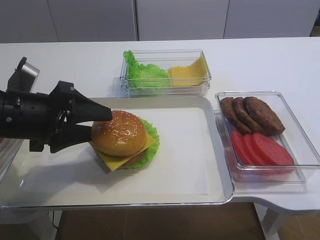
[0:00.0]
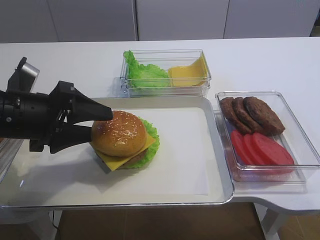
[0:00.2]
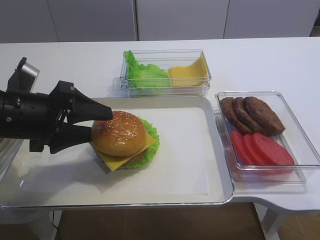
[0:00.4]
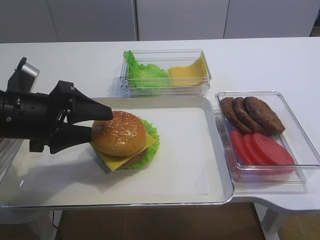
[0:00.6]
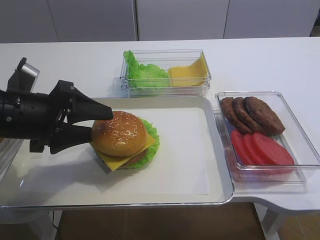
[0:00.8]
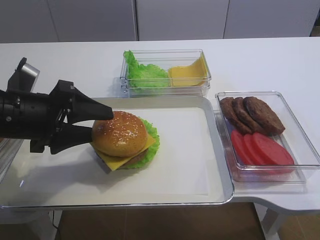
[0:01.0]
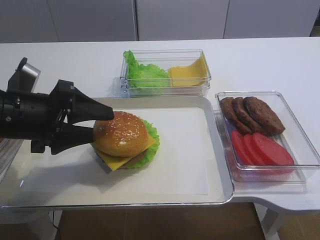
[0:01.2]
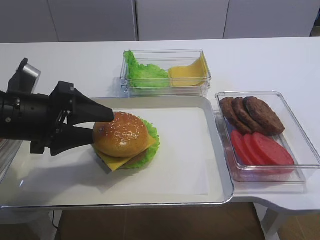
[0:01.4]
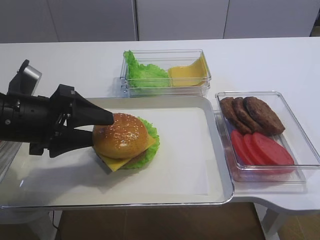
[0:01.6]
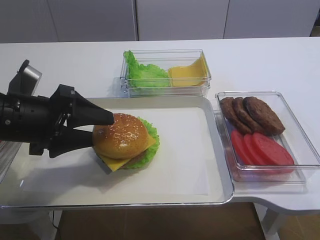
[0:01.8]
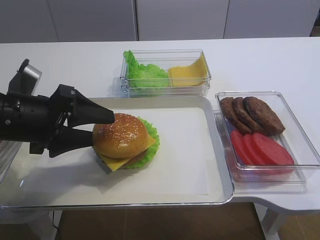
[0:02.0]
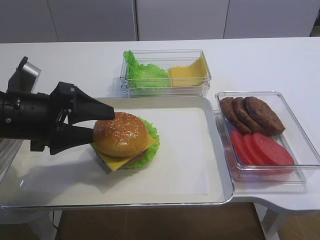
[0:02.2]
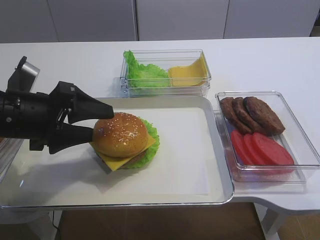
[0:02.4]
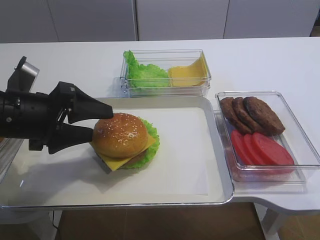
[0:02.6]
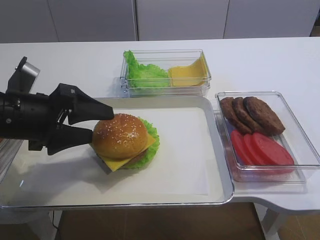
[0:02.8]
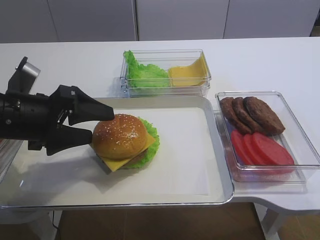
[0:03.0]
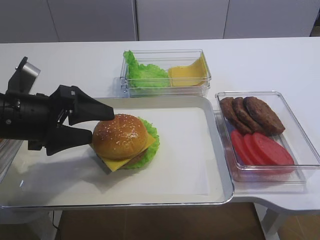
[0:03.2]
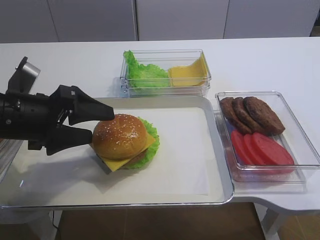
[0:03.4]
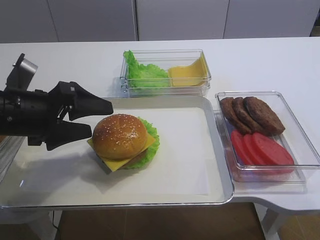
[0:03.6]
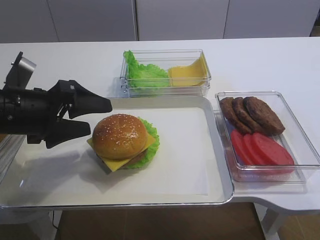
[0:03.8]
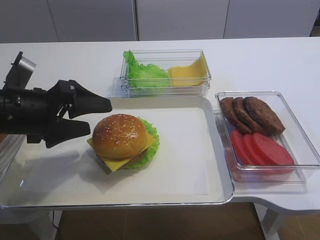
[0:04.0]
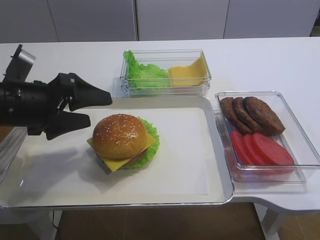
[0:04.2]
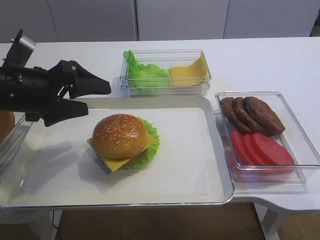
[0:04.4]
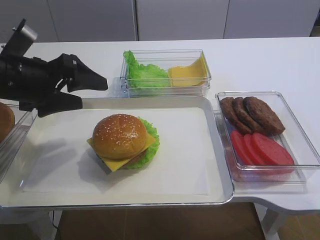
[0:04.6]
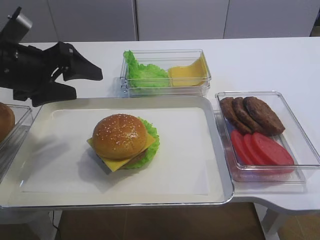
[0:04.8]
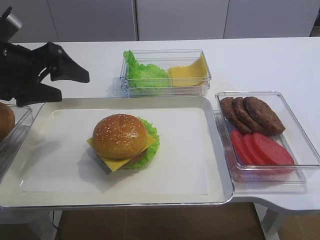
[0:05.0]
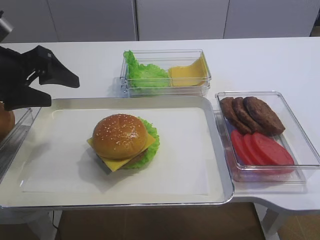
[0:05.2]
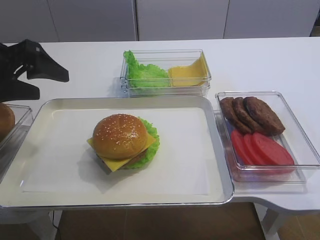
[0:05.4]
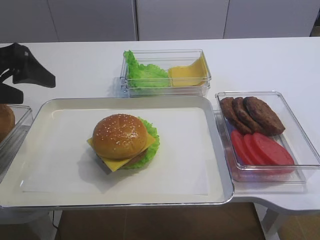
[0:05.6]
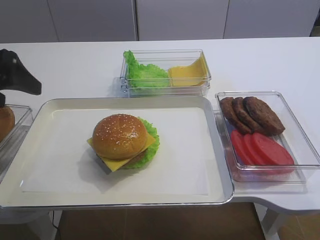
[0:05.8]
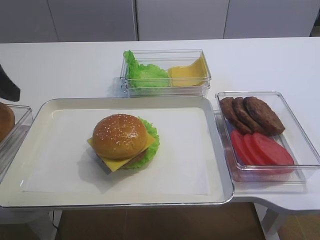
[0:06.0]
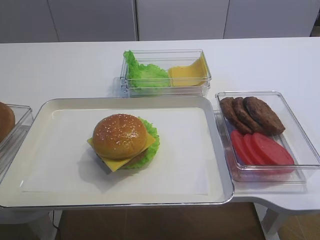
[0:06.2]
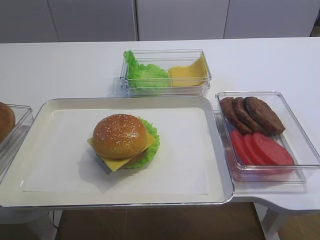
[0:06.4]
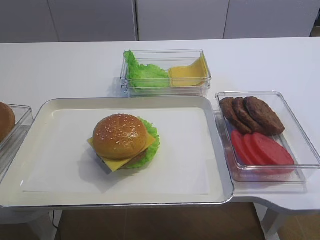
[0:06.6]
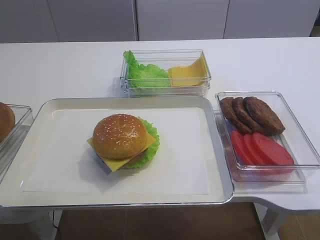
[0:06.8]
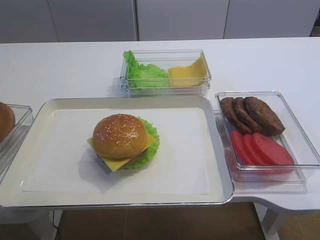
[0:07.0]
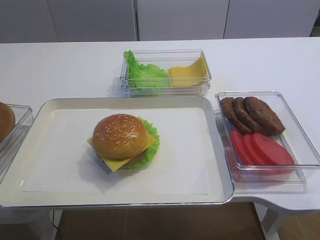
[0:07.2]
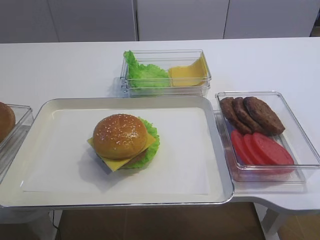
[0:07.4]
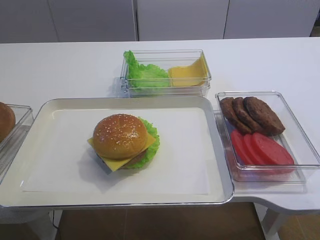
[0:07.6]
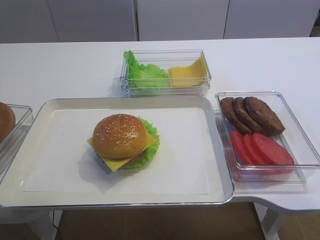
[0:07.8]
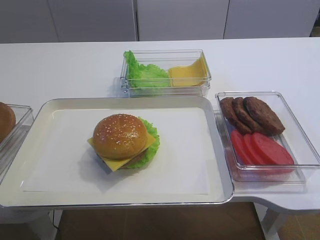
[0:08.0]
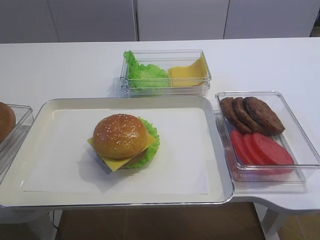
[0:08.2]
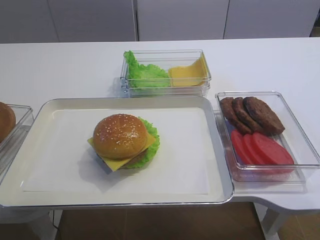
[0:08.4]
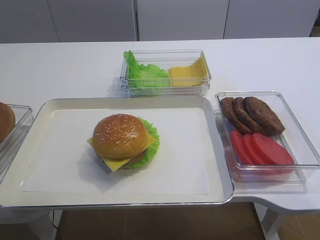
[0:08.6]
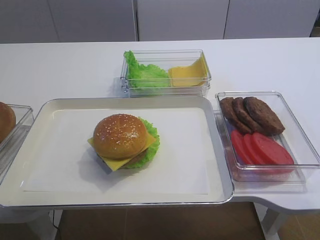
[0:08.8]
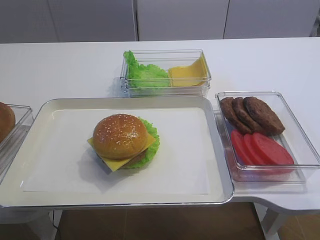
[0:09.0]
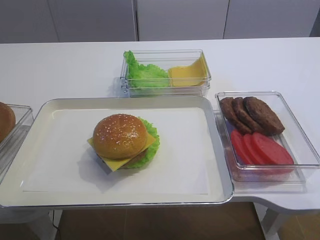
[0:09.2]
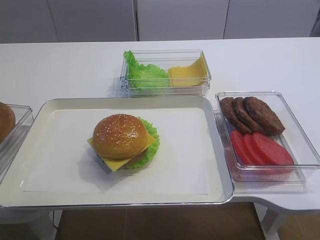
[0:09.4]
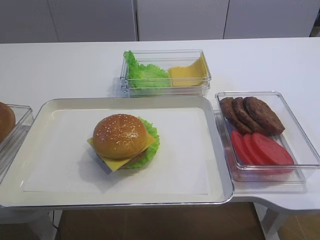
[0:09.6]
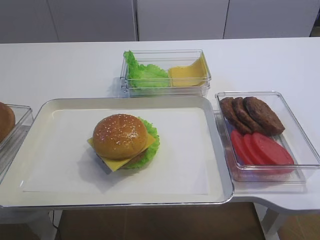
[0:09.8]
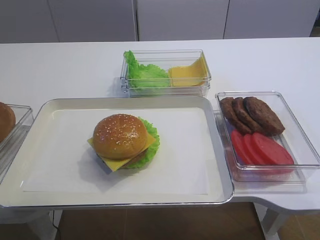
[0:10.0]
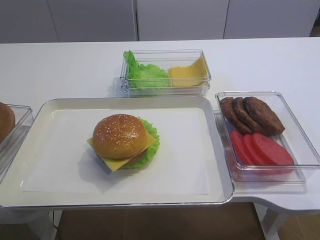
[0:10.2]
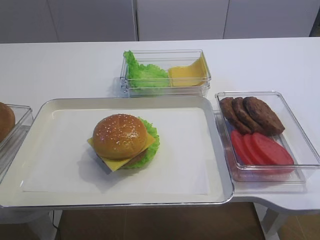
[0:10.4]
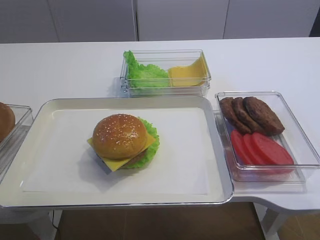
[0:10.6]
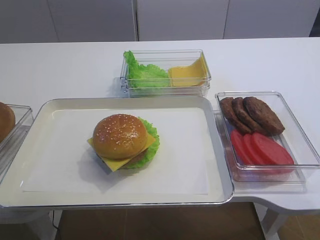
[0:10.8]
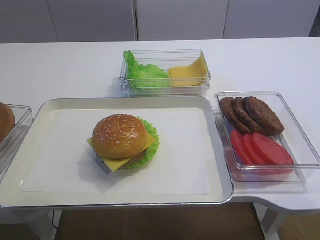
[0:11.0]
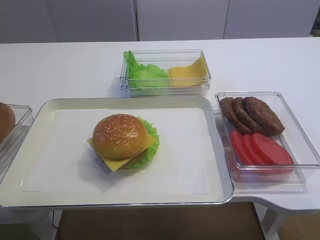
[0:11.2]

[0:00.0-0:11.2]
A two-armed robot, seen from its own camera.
Step, 0:00.0 to 0:04.4: Place the hamburger lid on the cheese slice with the left gripper.
0:00.0 to 0:03.2: Both grippers stay put.
0:03.2 to 0:04.8: The left gripper heads upward, covering about 5 cm.
0:04.8 to 0:06.4: The left gripper shifts some 15 cm backward, to the left and upward.
0:09.6 to 0:11.2: Both grippers stay put.

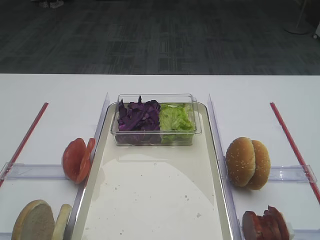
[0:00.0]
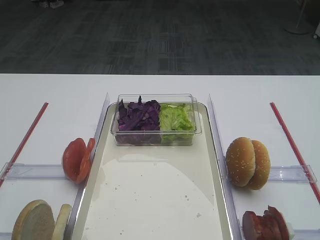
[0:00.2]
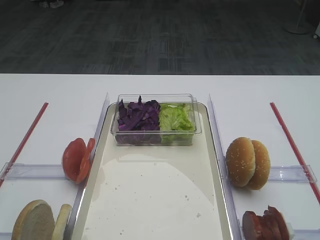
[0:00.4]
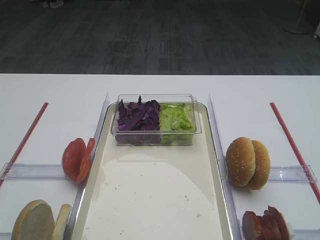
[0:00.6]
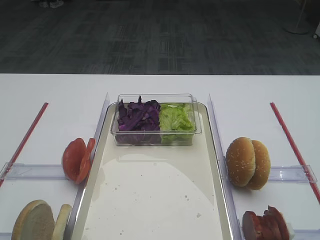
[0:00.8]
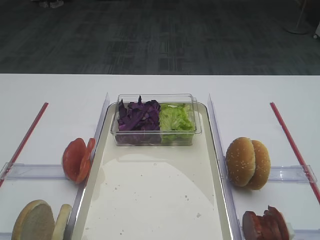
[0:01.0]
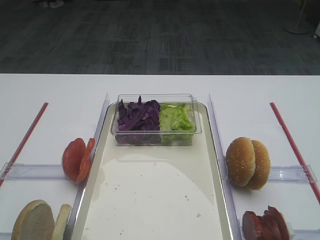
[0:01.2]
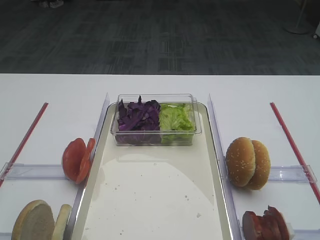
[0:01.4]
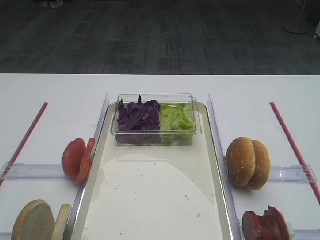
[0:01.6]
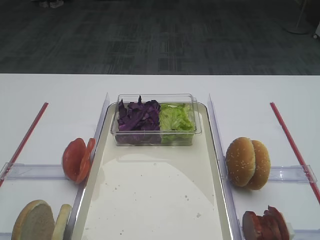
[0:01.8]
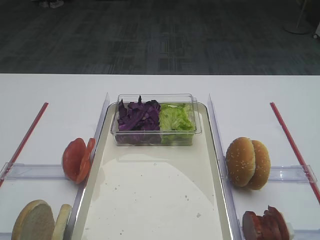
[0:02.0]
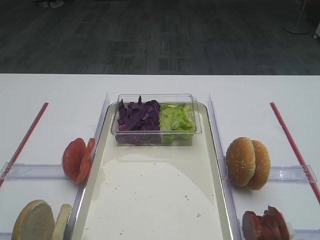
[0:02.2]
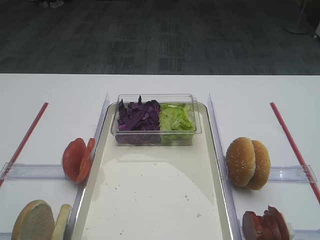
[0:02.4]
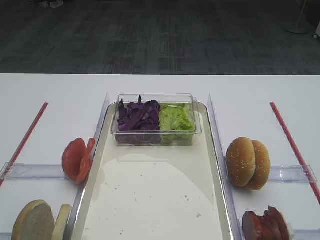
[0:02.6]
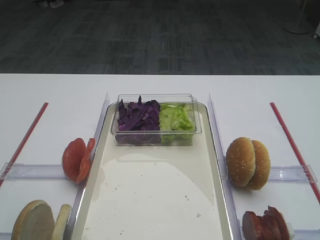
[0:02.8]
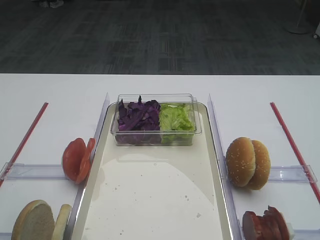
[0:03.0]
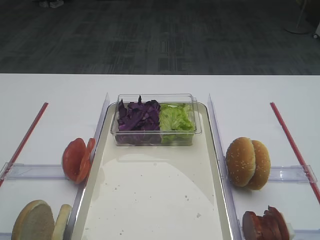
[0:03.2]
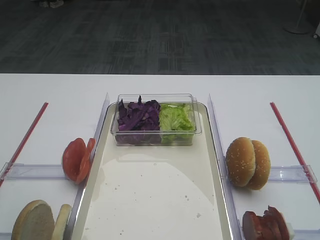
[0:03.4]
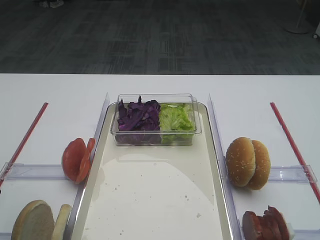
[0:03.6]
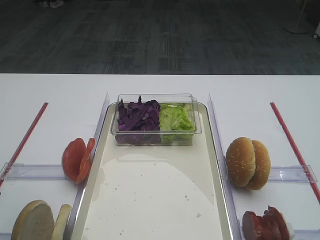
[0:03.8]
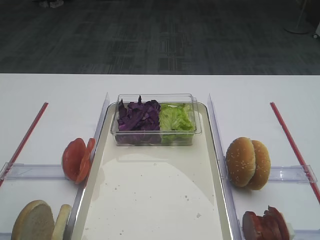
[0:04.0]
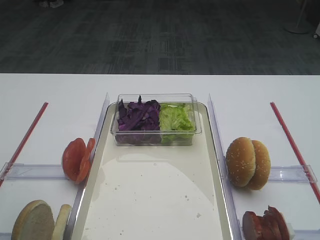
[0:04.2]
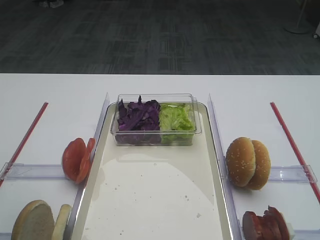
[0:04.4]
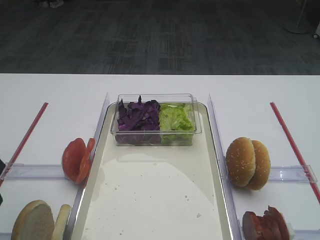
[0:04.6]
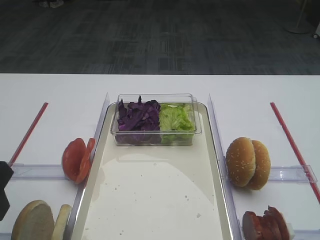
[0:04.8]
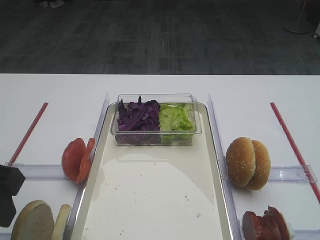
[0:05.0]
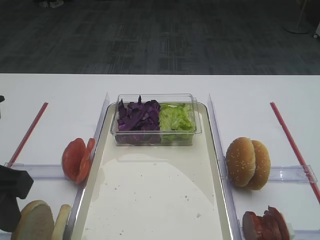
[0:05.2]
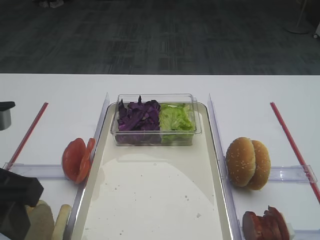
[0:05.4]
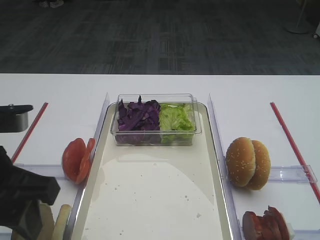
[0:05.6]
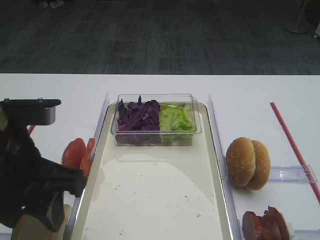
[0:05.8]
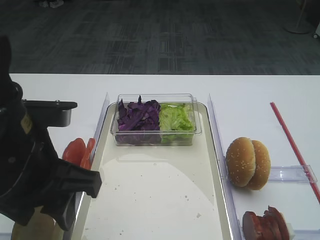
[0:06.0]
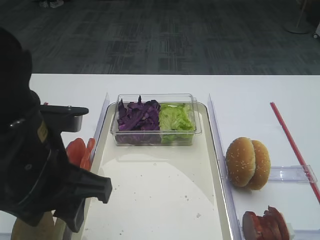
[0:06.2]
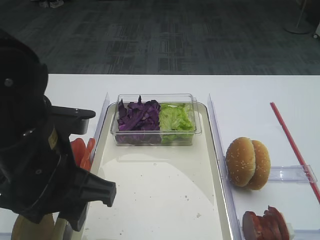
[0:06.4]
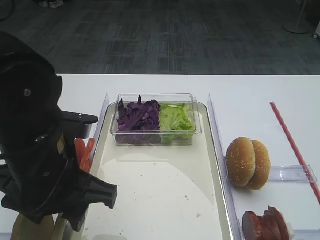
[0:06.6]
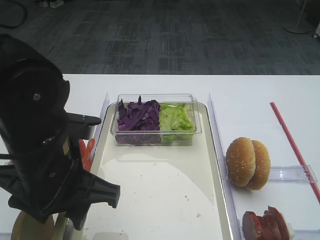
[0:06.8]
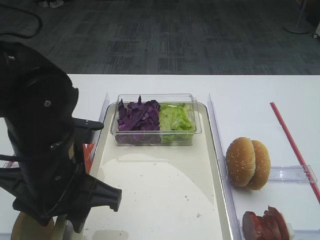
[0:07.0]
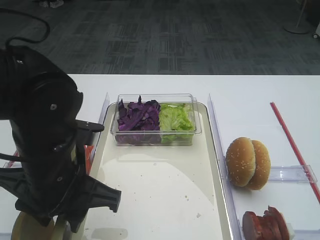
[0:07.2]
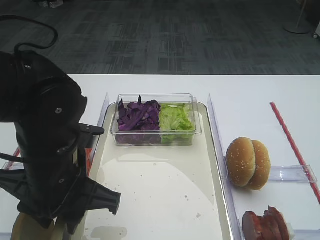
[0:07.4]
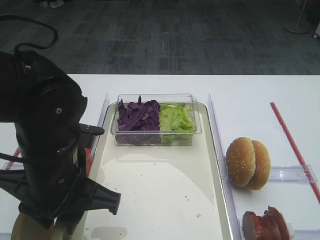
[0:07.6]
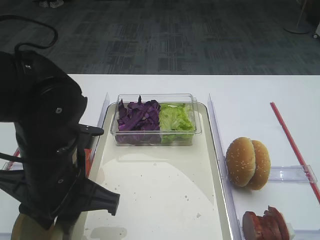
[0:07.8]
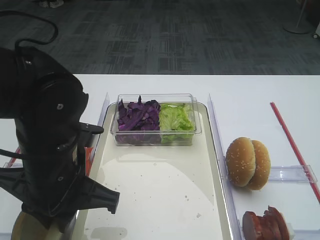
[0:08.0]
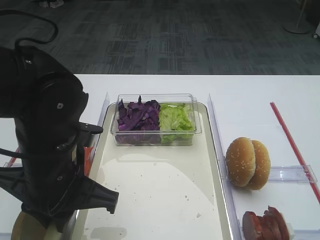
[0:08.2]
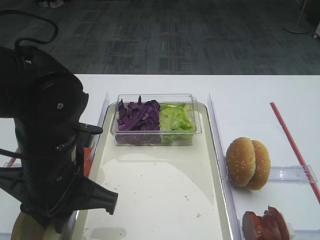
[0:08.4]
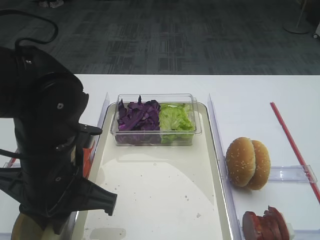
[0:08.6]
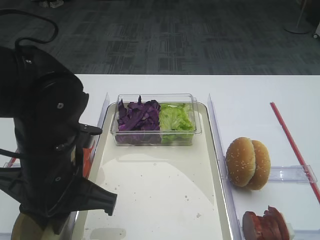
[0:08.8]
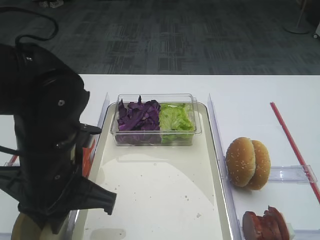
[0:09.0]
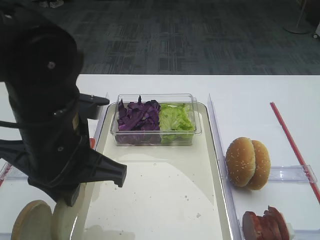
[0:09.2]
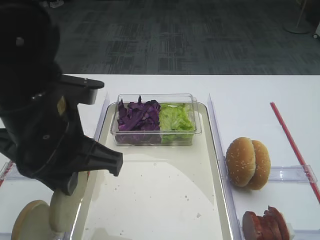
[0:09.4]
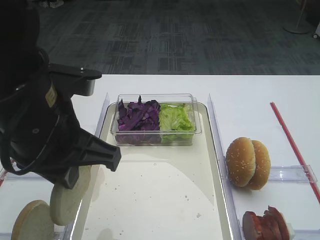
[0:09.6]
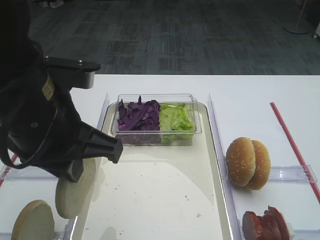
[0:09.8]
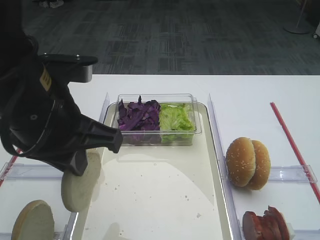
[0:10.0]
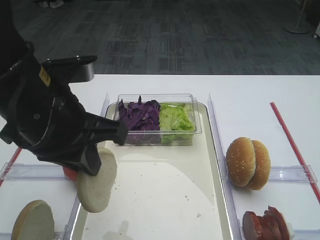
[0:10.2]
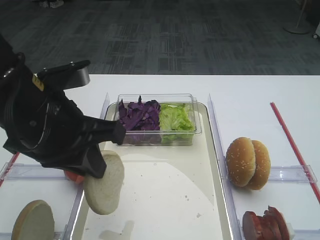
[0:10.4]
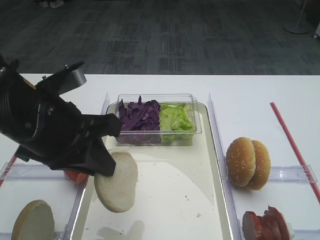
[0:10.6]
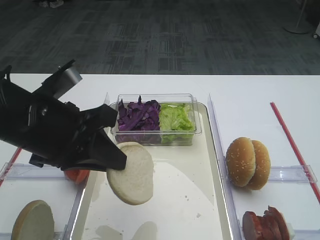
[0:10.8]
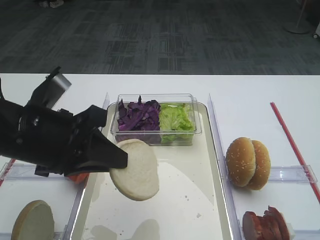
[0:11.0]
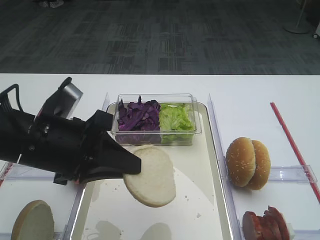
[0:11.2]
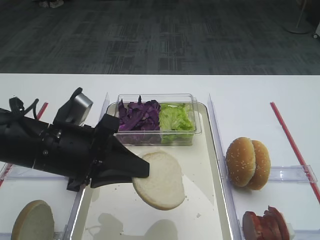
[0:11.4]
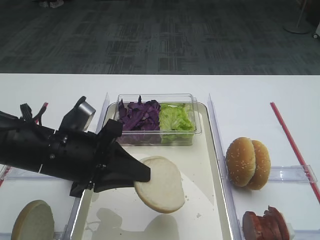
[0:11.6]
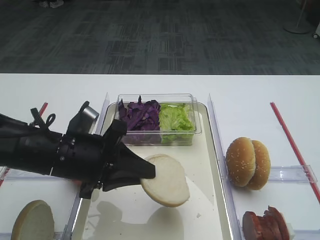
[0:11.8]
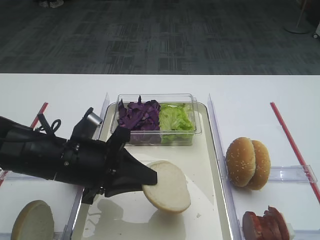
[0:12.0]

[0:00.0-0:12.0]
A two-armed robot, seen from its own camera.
Step, 0:00.0 to 0:09.2: Pick up the bread slice with the left gripper.
0:04.4 to 0:06.0: The left gripper heads to the right, covering roughly 10 cm.
0:06.0 to 0:07.6: The left gripper goes some 5 cm downward, and closes.
0:07.6 to 0:09.0: The left gripper closes its fingers.
0:09.0 to 0:10.4: The left gripper heads upward, covering some 5 cm.
0:10.4 to 0:12.0: The left gripper goes some 10 cm downward.
